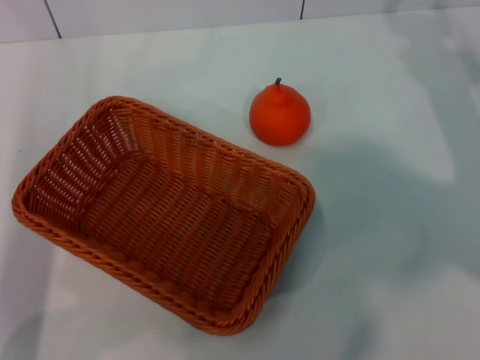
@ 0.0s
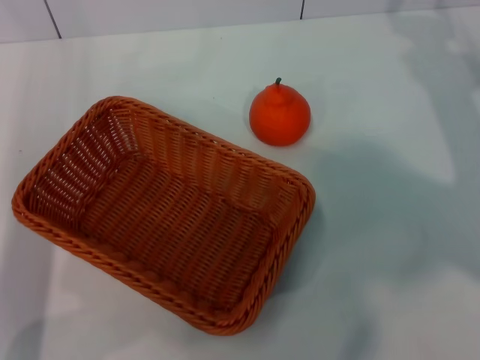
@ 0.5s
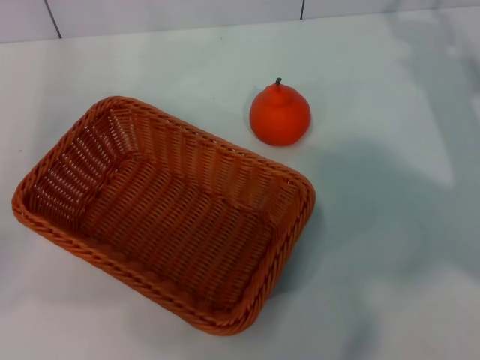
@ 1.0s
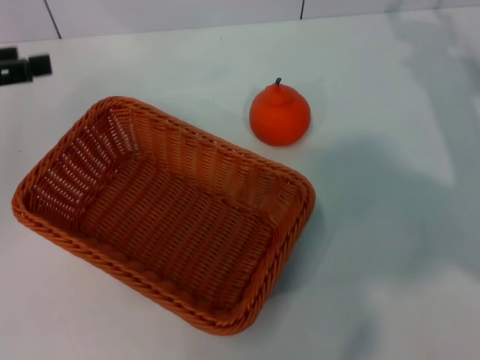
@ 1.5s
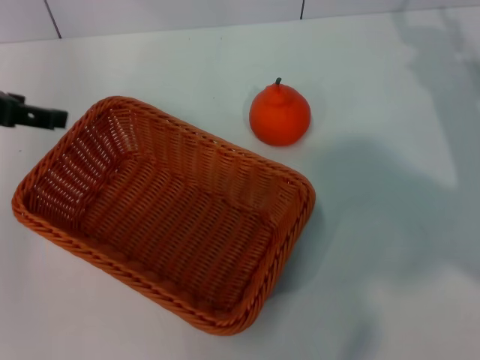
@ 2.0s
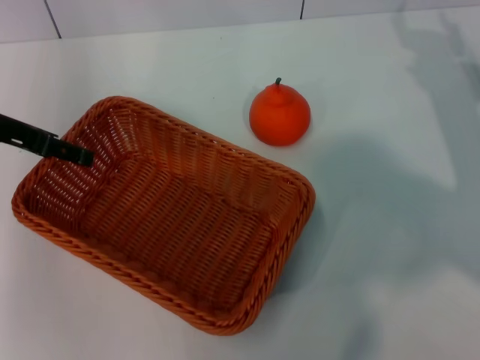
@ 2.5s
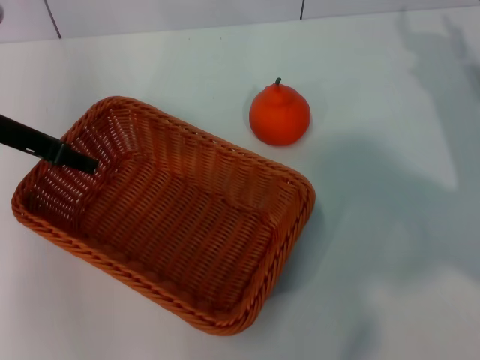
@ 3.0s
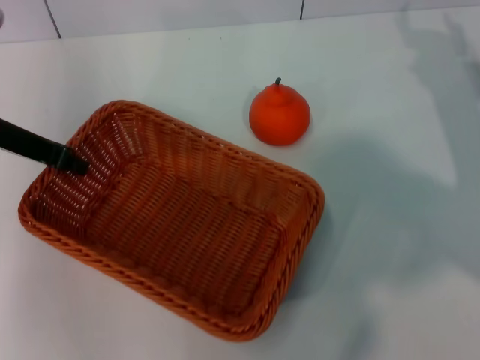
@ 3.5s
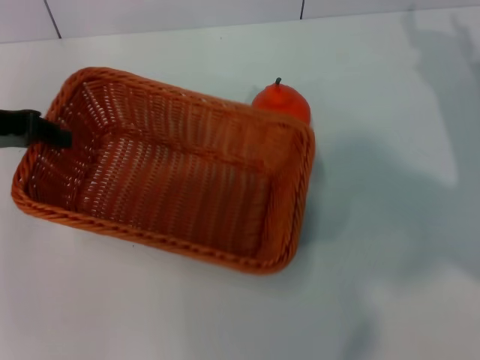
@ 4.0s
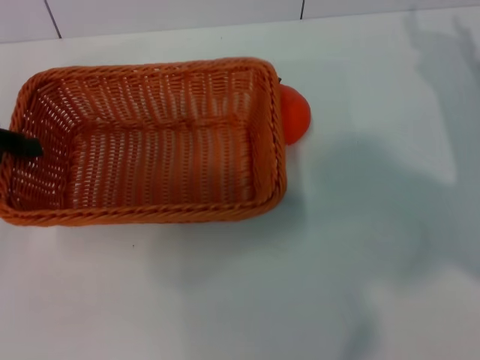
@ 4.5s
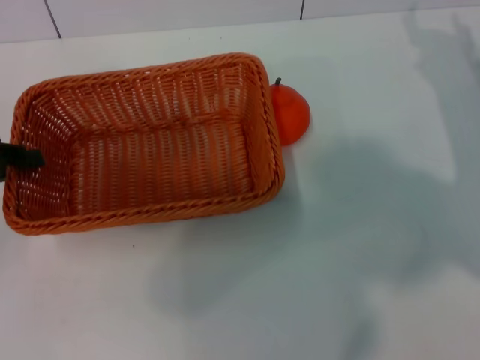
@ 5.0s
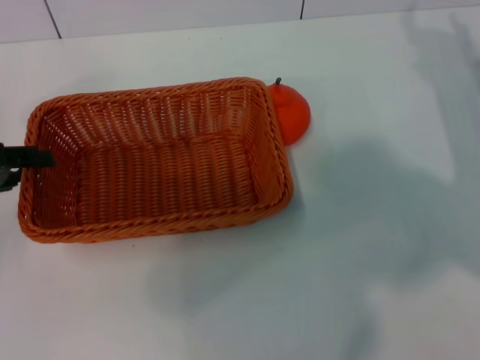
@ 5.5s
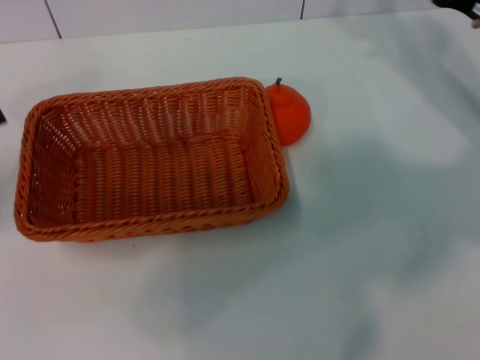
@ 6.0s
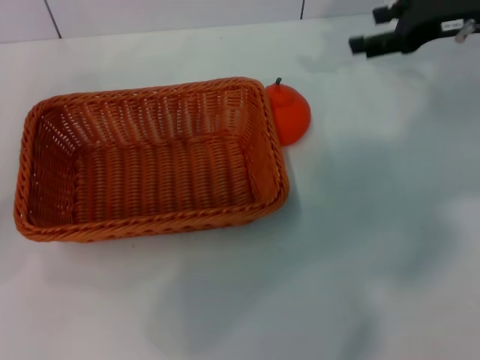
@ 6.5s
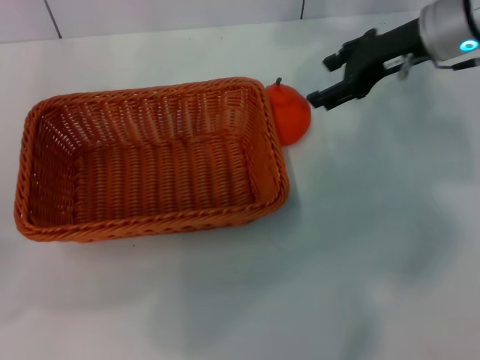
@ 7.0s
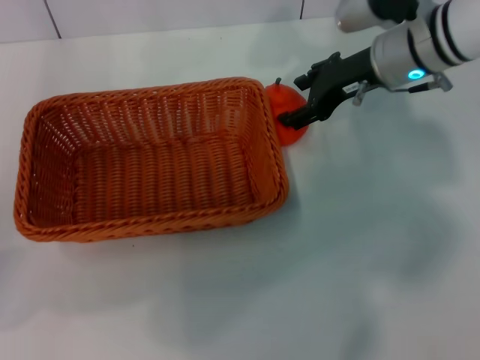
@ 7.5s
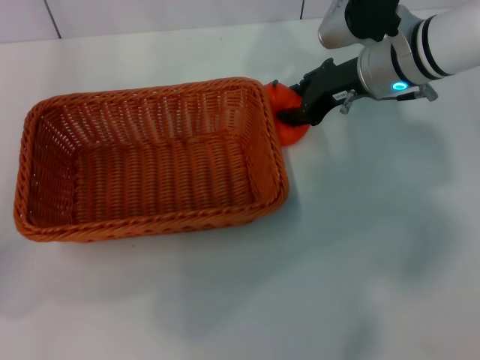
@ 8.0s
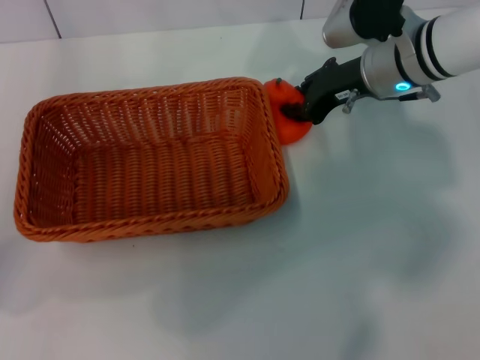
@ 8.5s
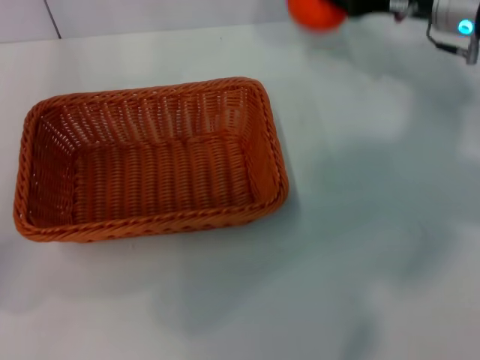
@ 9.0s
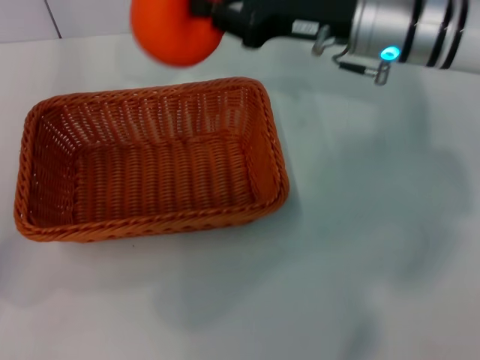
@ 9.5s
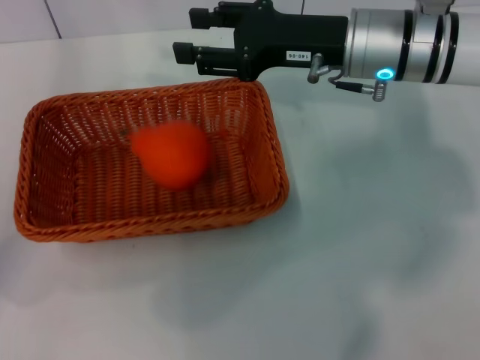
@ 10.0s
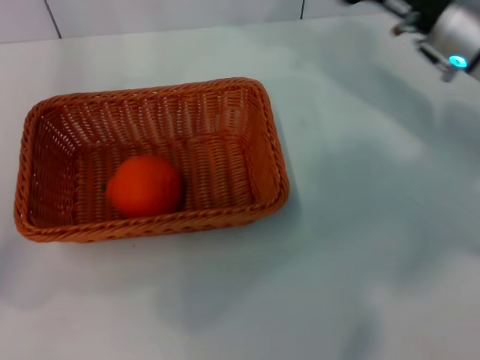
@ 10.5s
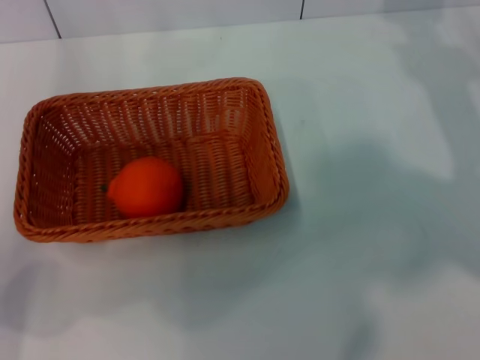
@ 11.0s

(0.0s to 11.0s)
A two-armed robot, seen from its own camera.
Task of the whole recording: the left gripper pick up the yellow basket and place it horizontally in the middle of the table, the right gripper pick up the orange and place it into the yellow basket.
Step, 0.0s - 3.5s: Pick up the light basket with the left gripper.
Step, 4.0s - 5.5s: Place the light basket in the center of view with the left gripper.
Step, 6.0s - 8.5s: Pick up the orange with the right gripper.
Step, 9.0s - 10.0s: Place the orange into the light basket with the right gripper.
0.0s - 2.0s: The left gripper goes roughly 15 cm upward and forward.
2.0s - 3.5s: The left gripper goes roughly 5 cm to the right, and closes up.
3.5s - 5.5s: The left gripper is displaced to the left and backward by approximately 10 cm.
5.5s - 7.5s: The left gripper opens its fingers. The right gripper heads to the left, upward and forward, covering roughly 15 cm.
7.5s - 9.0s: The right gripper moves to the right, some 5 cm, and closes.
9.0s - 11.0s: The right gripper heads to the right and backward, covering some 10 cm, and opens its fingers.

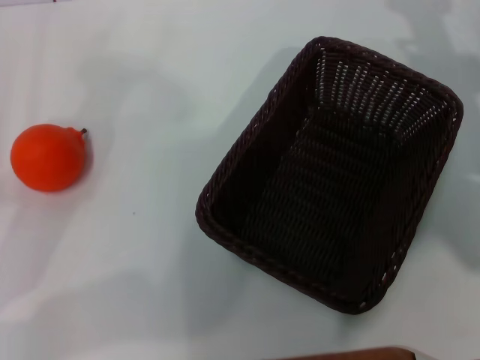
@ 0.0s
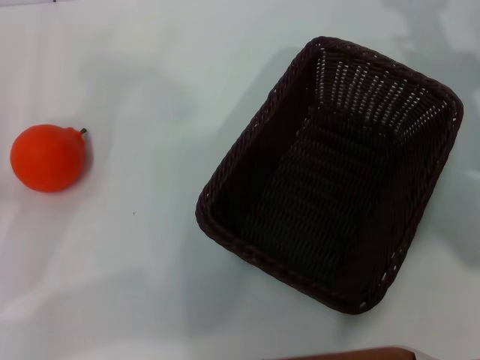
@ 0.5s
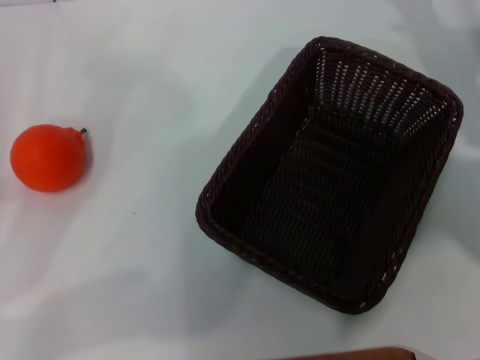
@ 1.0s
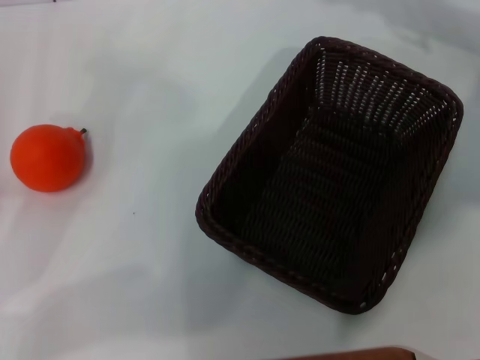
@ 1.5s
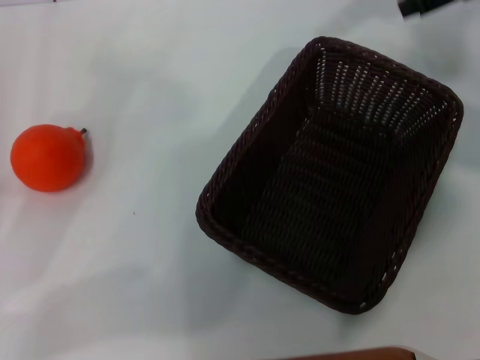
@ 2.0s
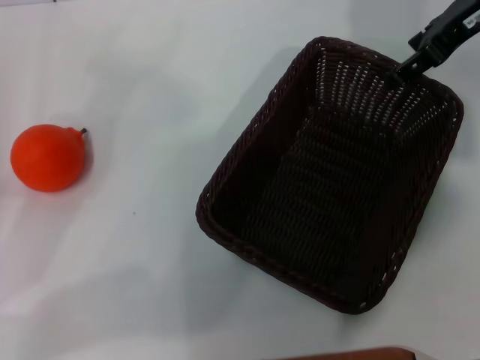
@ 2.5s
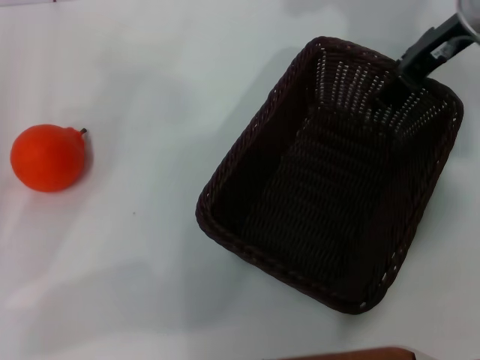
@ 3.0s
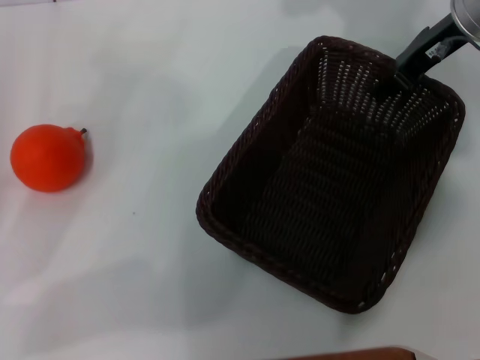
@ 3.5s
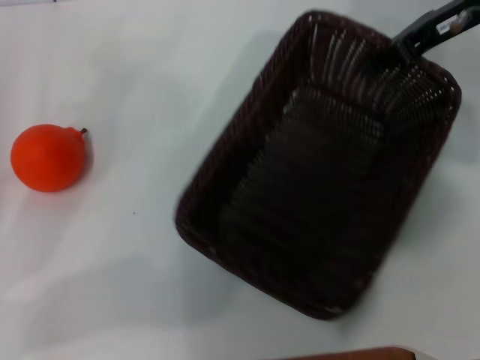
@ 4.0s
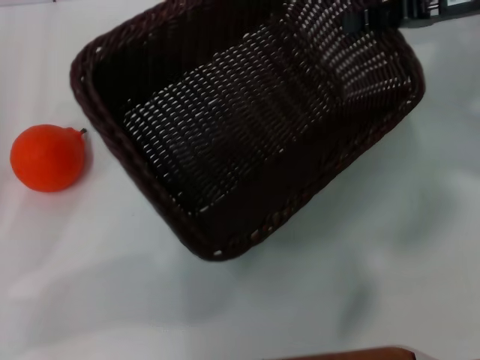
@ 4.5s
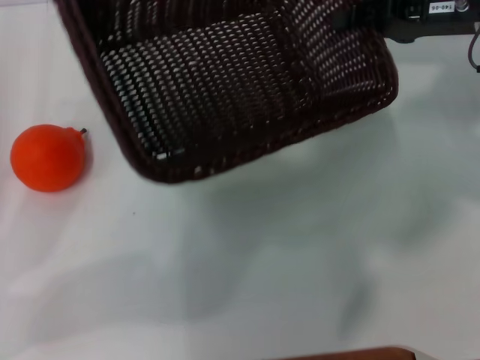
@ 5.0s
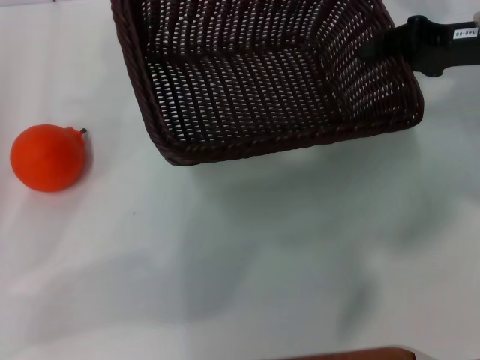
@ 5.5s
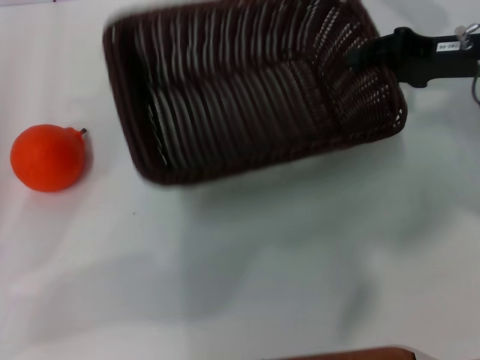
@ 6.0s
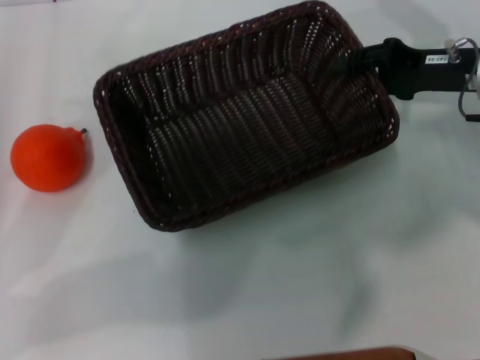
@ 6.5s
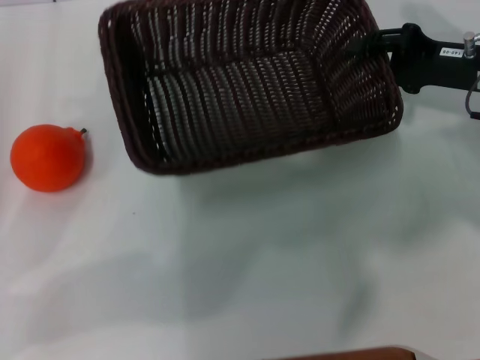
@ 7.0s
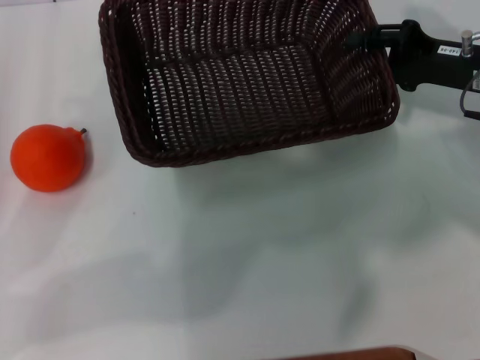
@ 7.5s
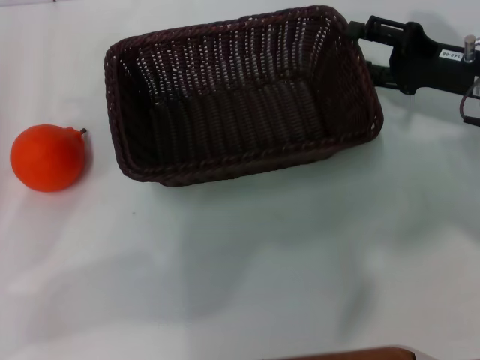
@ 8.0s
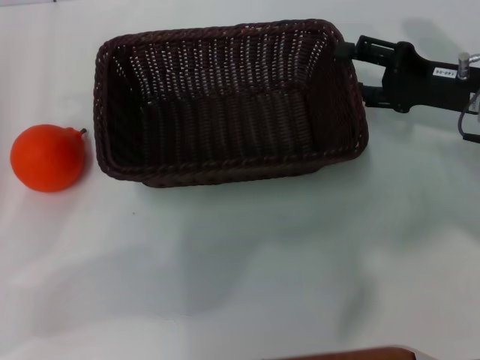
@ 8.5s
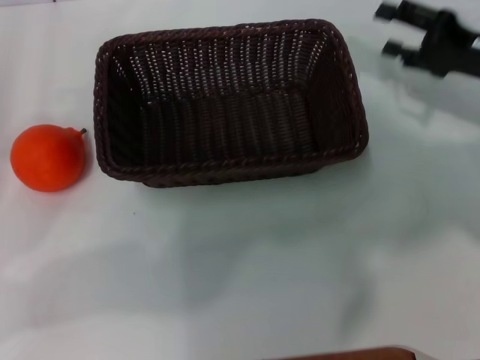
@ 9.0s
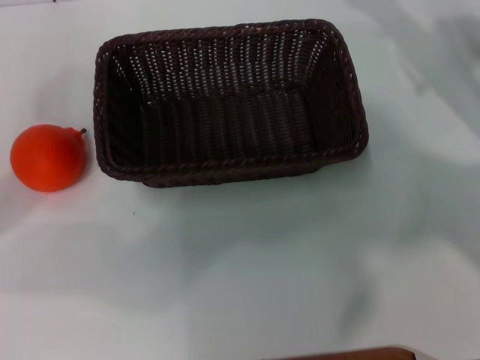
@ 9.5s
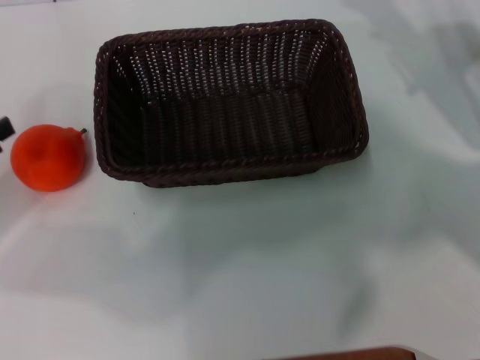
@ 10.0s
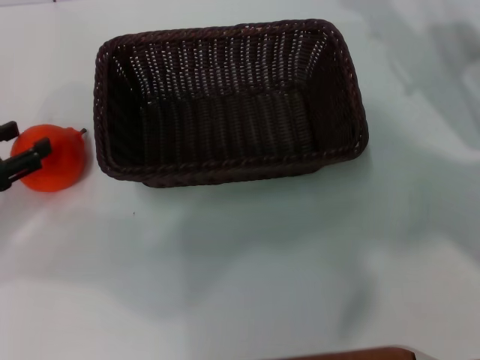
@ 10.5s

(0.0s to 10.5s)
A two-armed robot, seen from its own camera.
Task of the whole recording: the right gripper pick up the black basket and place it horizontally in the middle of the table, the left gripper pick up the orange and place it into the black basket.
Step, 0.0s - 4.0s: Pick up the dark basket with the right gripper.
Step, 4.5s - 8.5s: Place the dark basket in the center of view with the right gripper.
0.0s - 2.0s: The right gripper moves upward, about 15 cm, and opens.
2.0s - 4.0s: The right gripper moves downward, approximately 5 cm, and closes up.
4.0s - 6.5s: The right gripper travels downward by some 10 cm.
6.5s - 8.5s: The right gripper opens up.

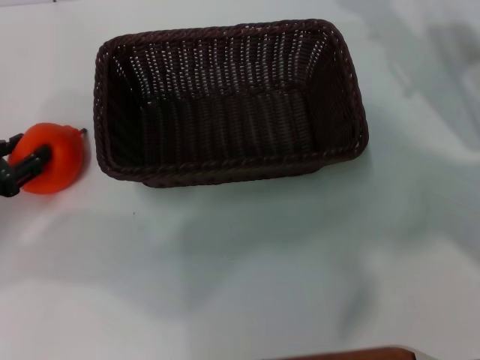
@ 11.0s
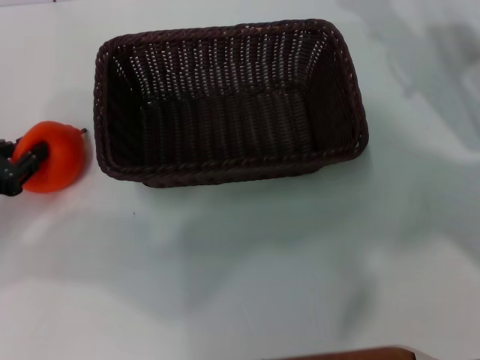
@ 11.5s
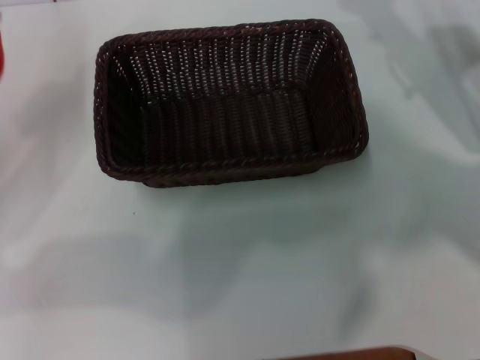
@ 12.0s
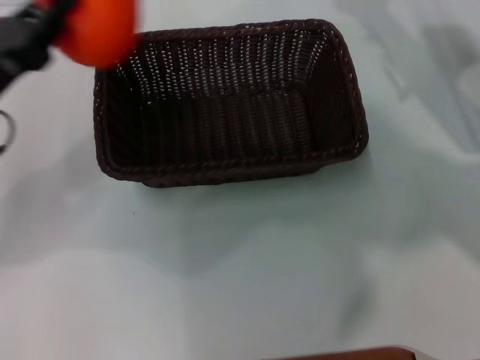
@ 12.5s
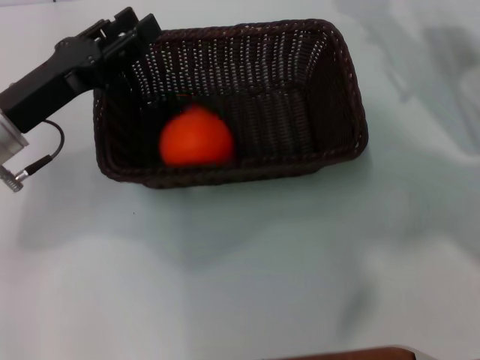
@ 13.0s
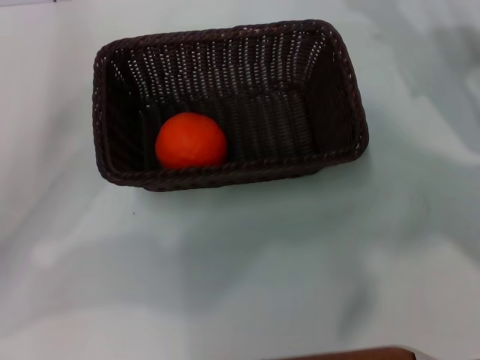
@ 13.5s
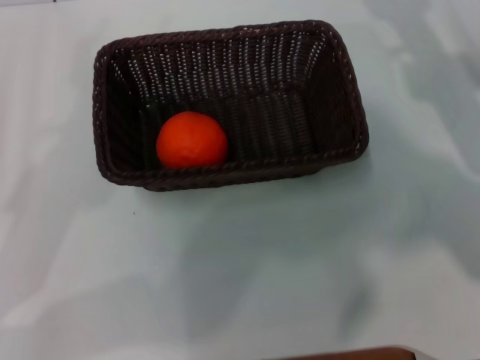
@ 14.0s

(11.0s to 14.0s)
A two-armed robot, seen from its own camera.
Task of the whole recording: the right gripper pick up the black basket and place it horizontally in the middle of the table, the left gripper pick up the orange and place it into the black basket.
Step, 12.0s - 13.0s: Place the orange into the dark basket with the left gripper.
11.0s - 12.5s: The left gripper heads to the right and upward, covering about 10 cm, and closes.
12.5s - 14.0s: The left gripper is displaced backward and to the left by approximately 10 cm, and opens its fingers.
